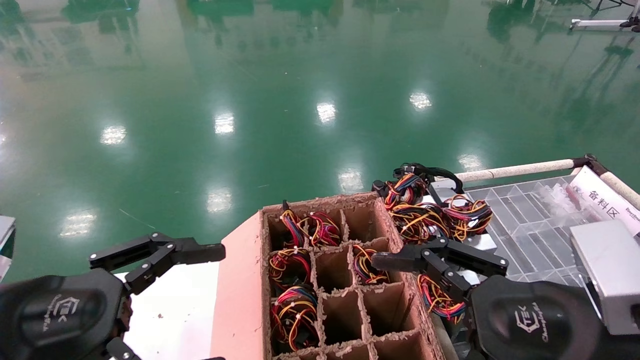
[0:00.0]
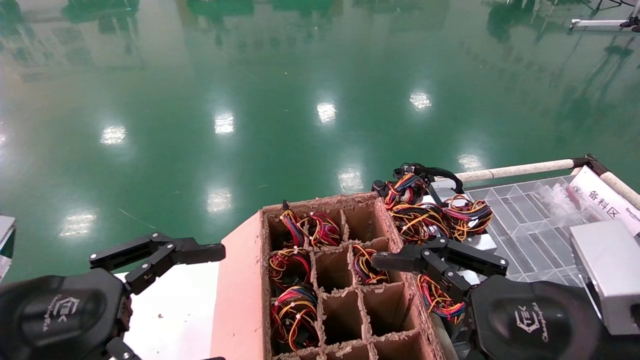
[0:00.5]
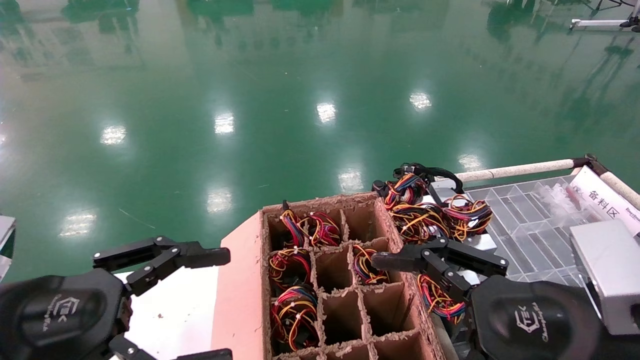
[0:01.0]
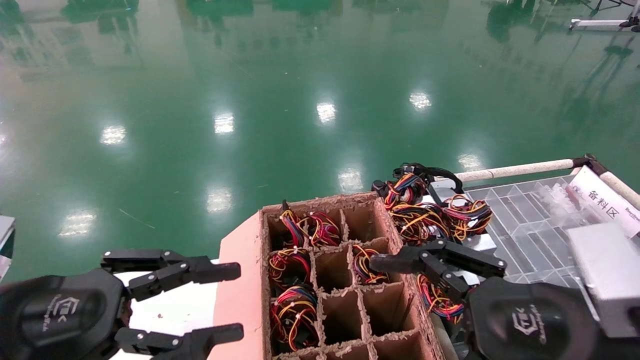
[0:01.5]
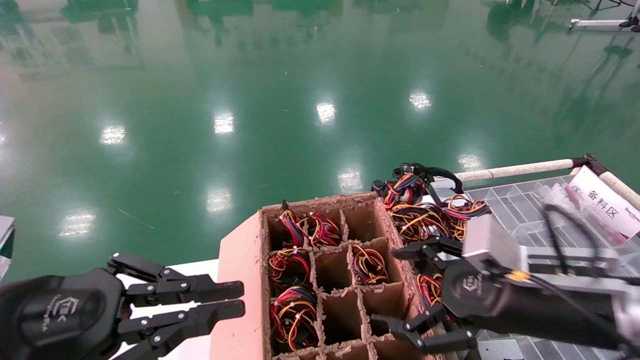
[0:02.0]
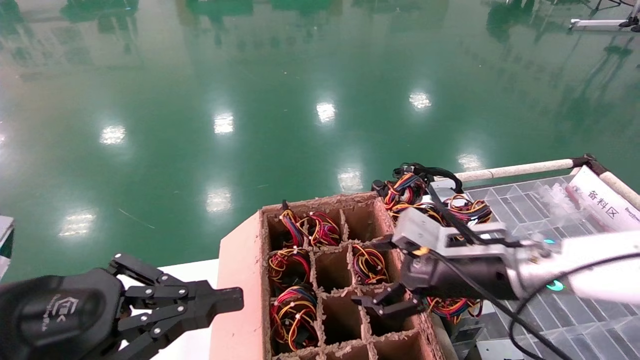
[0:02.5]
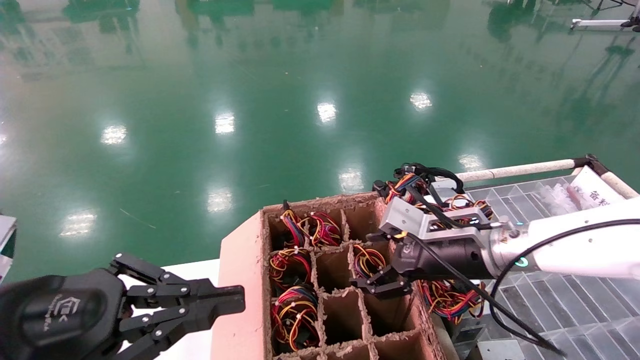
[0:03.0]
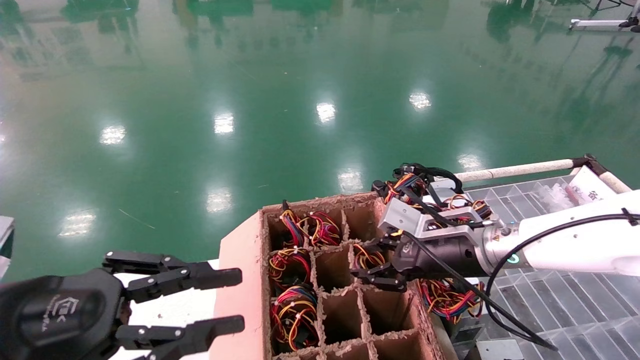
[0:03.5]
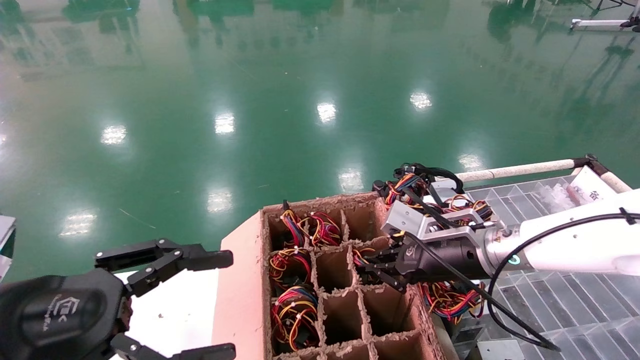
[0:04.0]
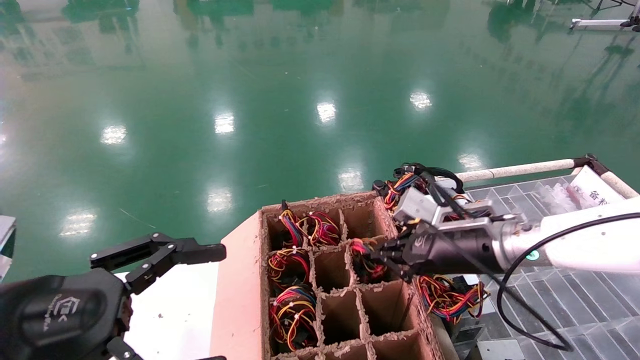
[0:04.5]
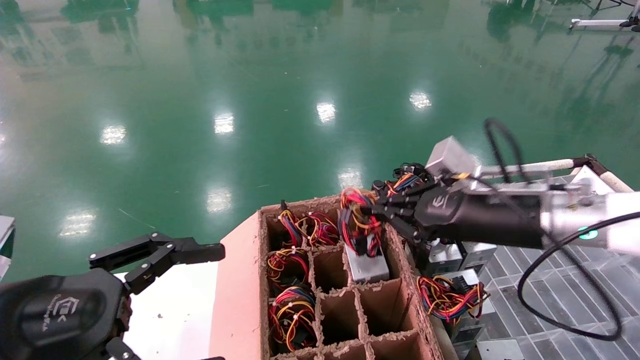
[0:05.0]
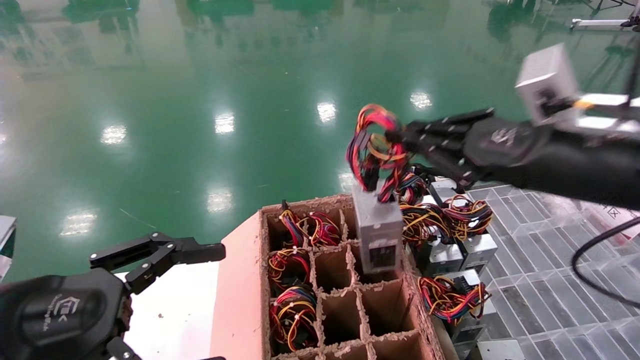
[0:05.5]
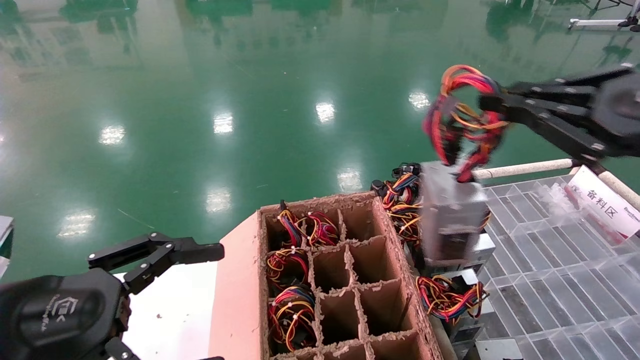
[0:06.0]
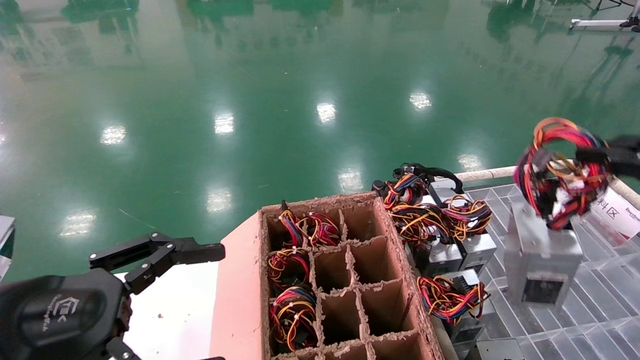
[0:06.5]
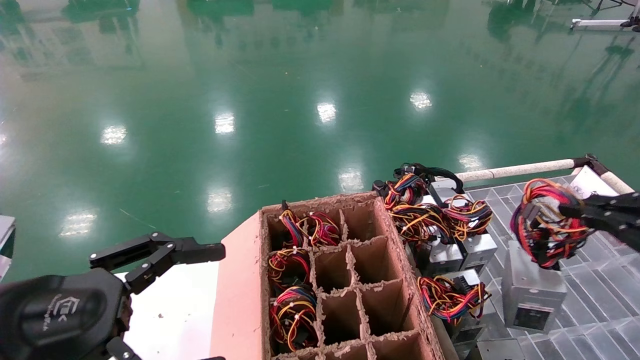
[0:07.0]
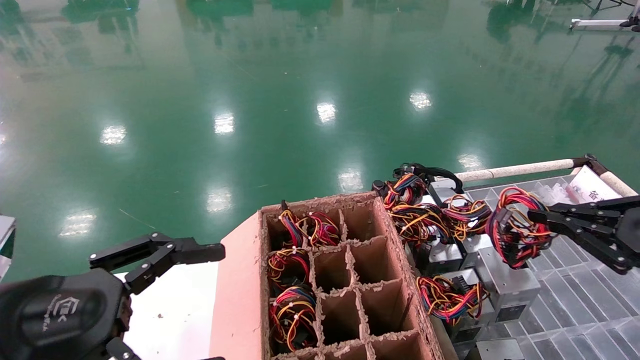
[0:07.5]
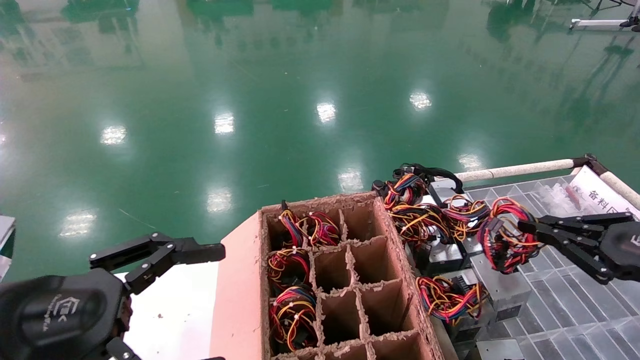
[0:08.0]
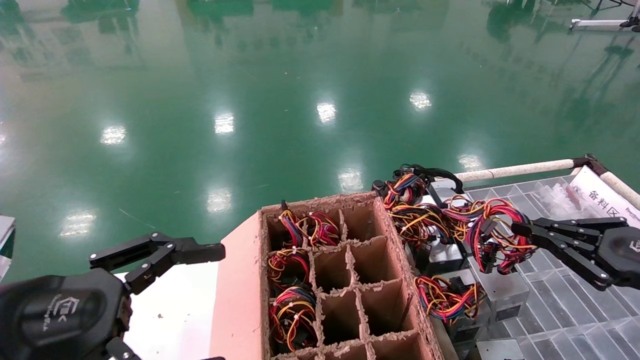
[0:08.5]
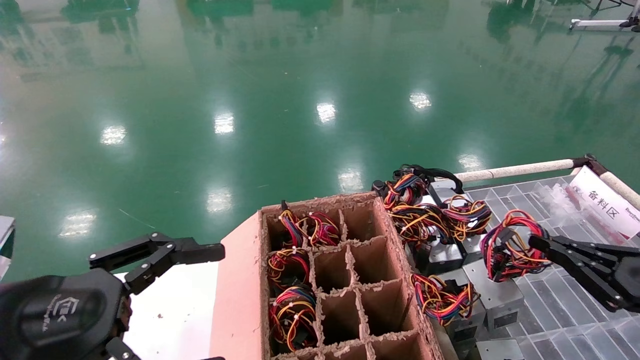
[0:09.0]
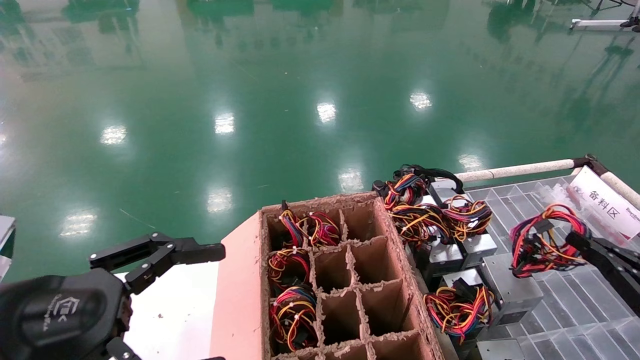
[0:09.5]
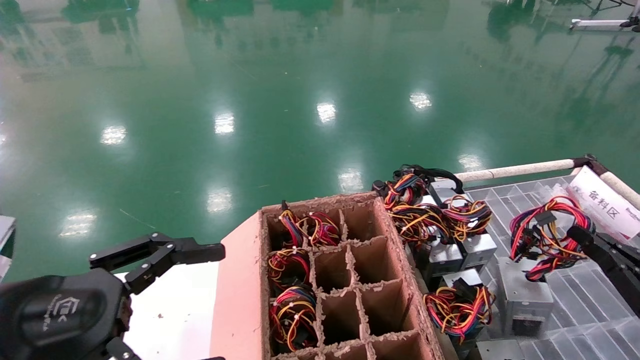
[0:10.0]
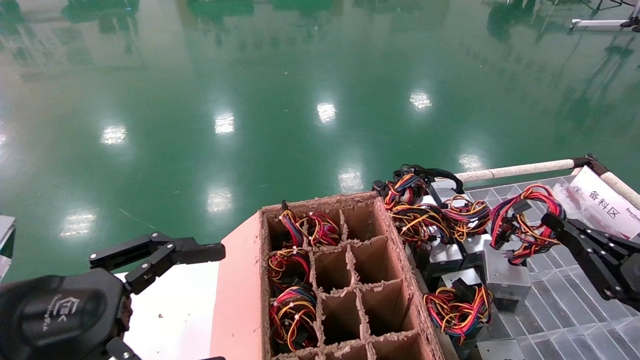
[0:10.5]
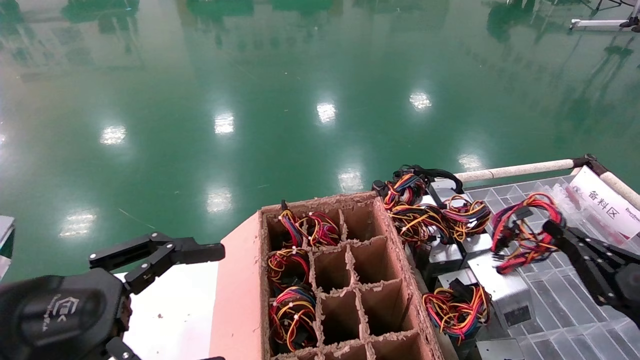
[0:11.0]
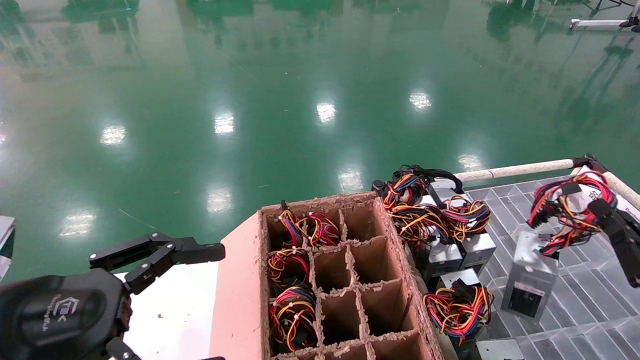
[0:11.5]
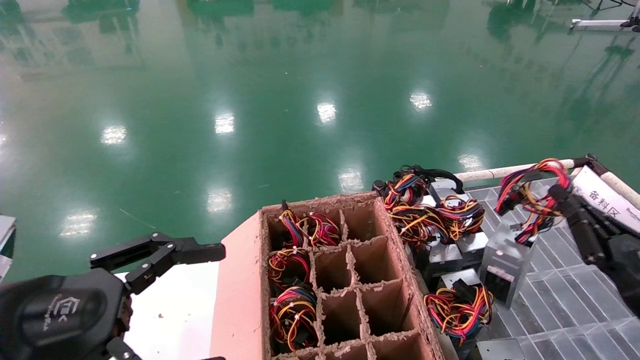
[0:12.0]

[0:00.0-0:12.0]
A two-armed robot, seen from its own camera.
Step, 0:02.5 to 0:04.5: Grab and lift the power supply from the large box.
0:00.0 to 0:02.0: The left gripper closes its fingers, while the right gripper shifts some 10 cm forward.
0:02.0 to 0:04.0: The left gripper opens up; the right gripper travels forward by roughly 10 cm, and closes its fingers.
0:04.0 to 0:06.0: The right gripper heads backward, upward and to the right, covering about 30 cm. The left gripper opens up.
0:06.0 to 0:08.0: The right gripper is displaced downward, to the right and forward by roughly 15 cm.
0:08.0 to 0:10.0: The right gripper goes approximately 10 cm downward.
0:10.0 to 0:12.0: The right gripper goes roughly 5 cm forward.

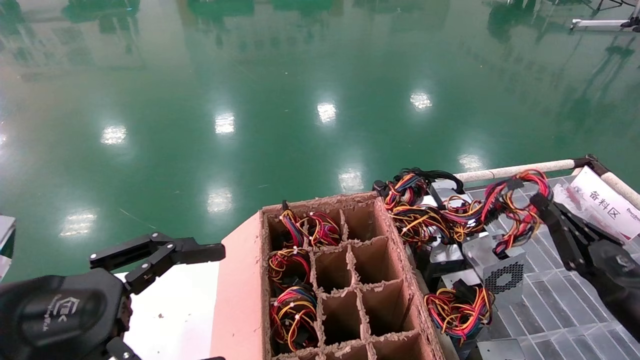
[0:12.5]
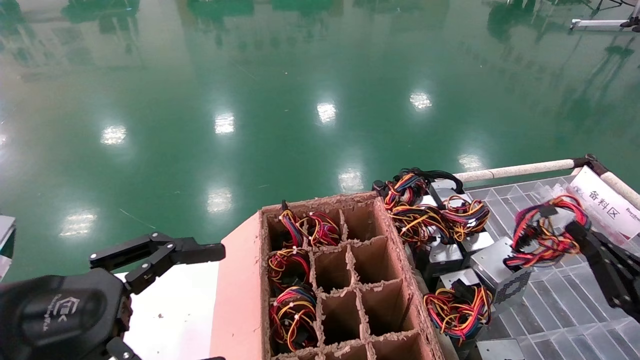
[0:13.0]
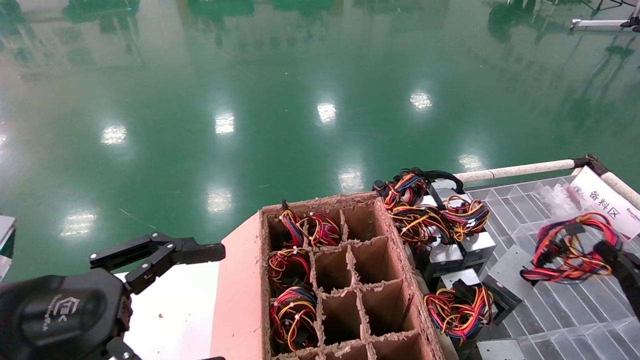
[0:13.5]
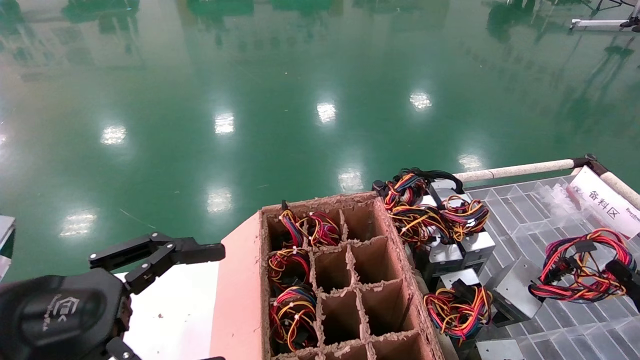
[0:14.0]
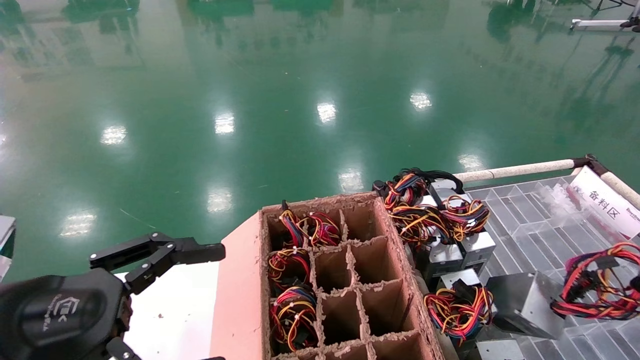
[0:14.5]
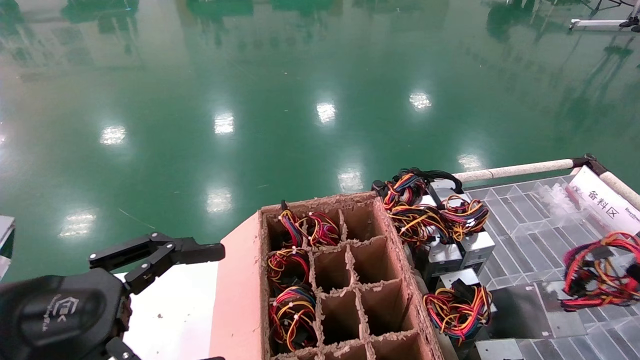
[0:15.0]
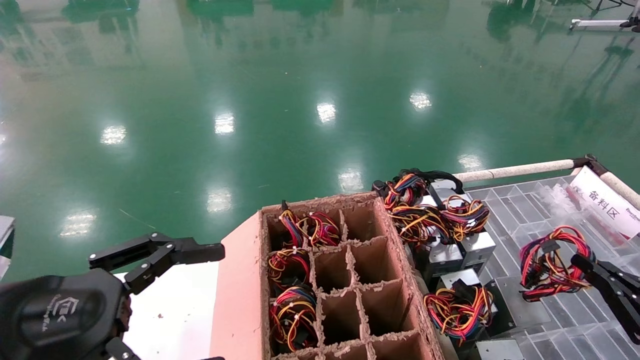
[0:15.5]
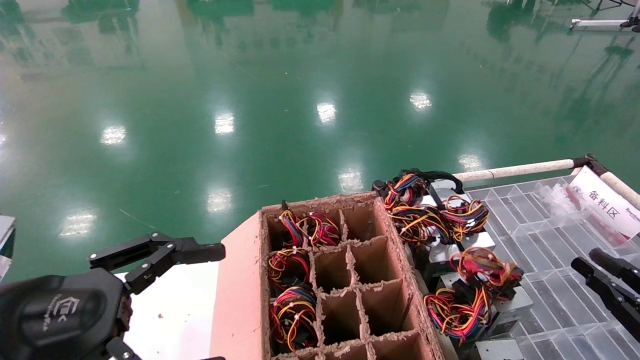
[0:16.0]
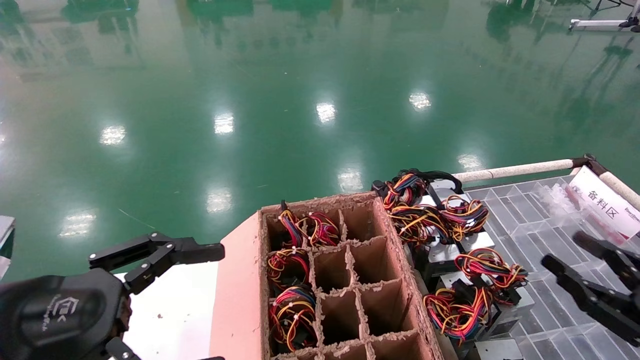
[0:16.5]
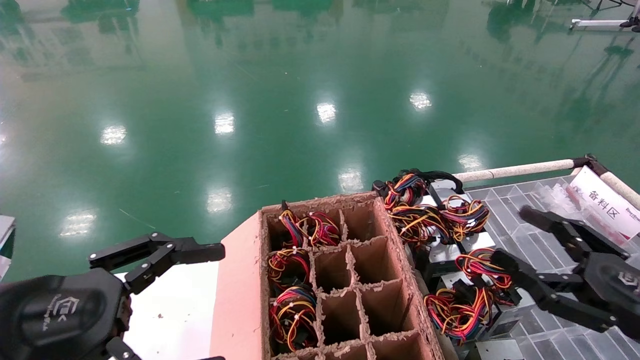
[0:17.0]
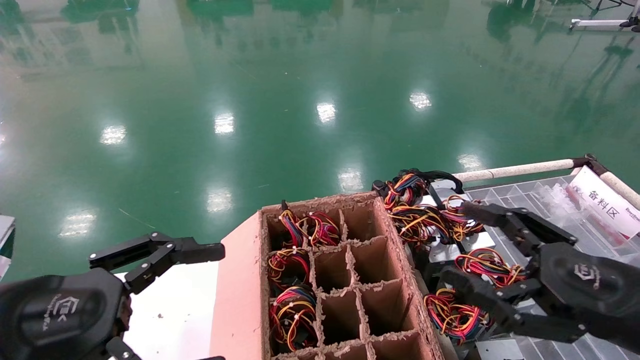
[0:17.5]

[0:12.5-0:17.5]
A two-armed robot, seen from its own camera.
Step, 0:12.5 to 0:15.5: Place the power supply on the operating table.
0:12.5 to 0:15.0: The right gripper shifts some 10 cm backward and to the right.
0:15.0 to 0:17.5: The right gripper is displaced to the left and upward by approximately 20 cm, and opens.
